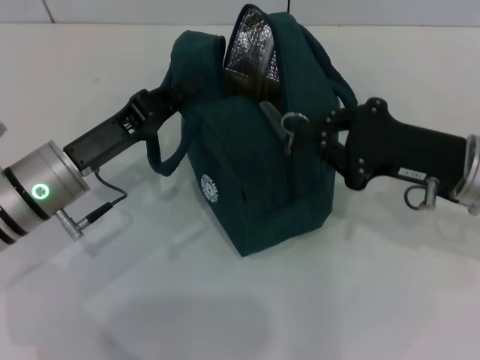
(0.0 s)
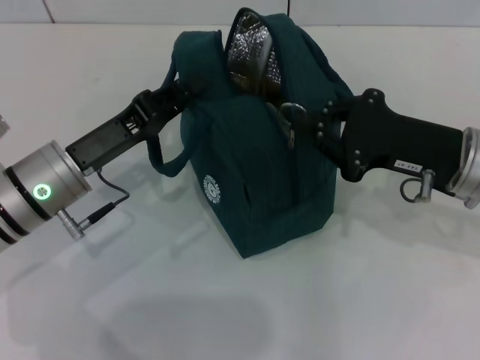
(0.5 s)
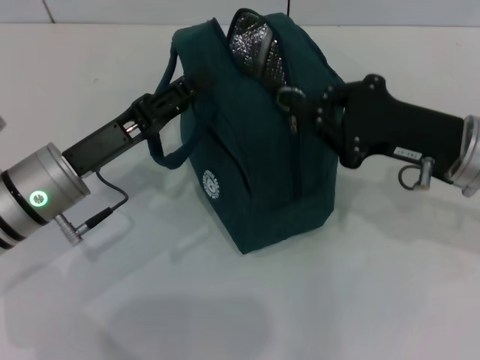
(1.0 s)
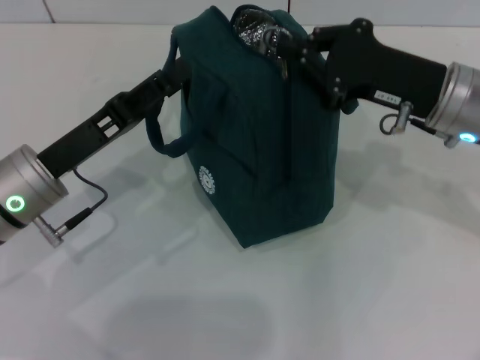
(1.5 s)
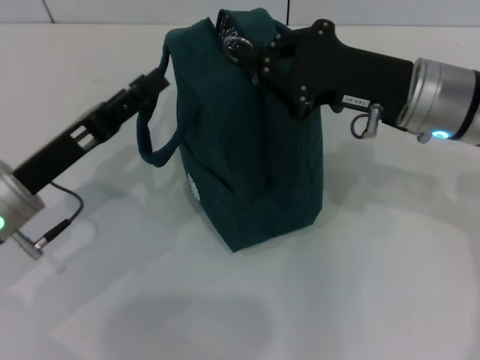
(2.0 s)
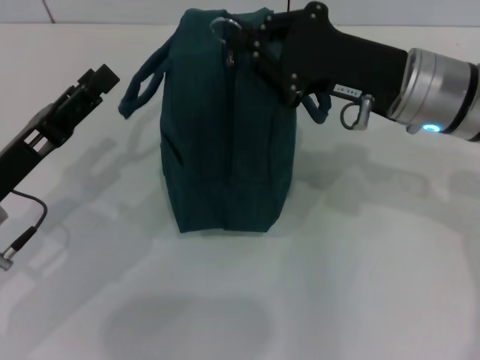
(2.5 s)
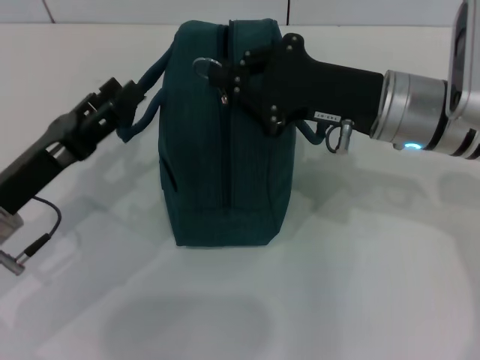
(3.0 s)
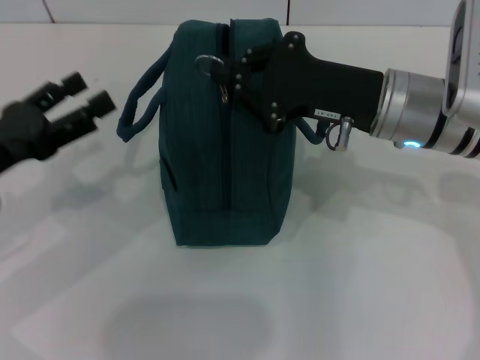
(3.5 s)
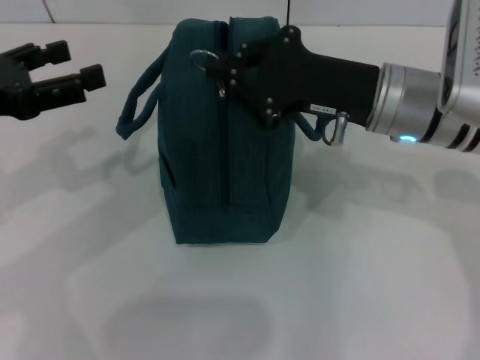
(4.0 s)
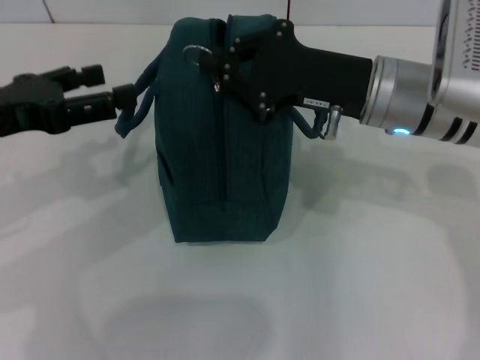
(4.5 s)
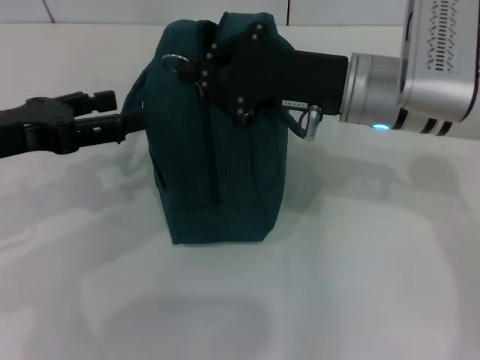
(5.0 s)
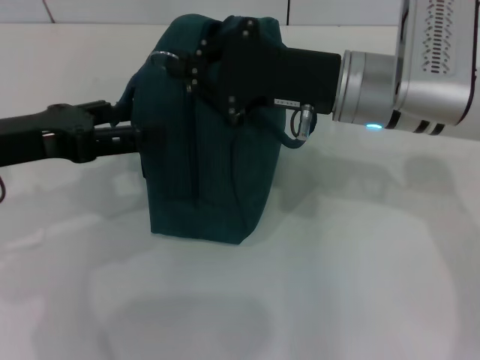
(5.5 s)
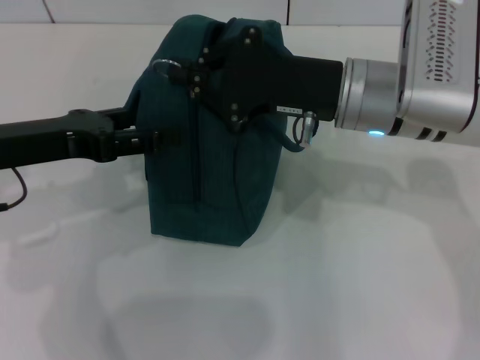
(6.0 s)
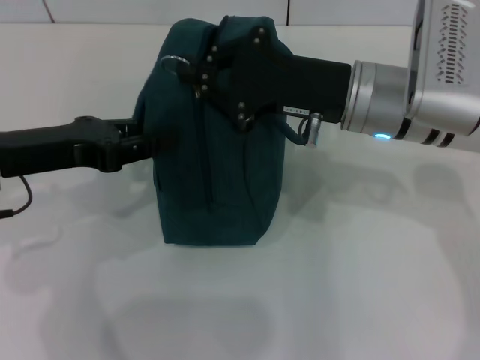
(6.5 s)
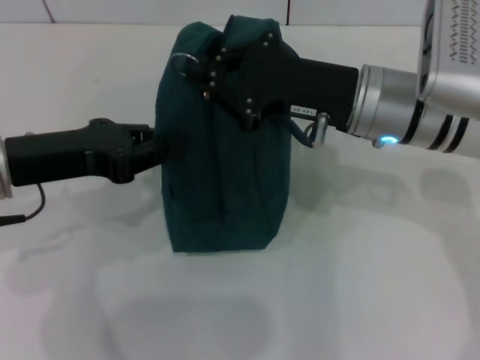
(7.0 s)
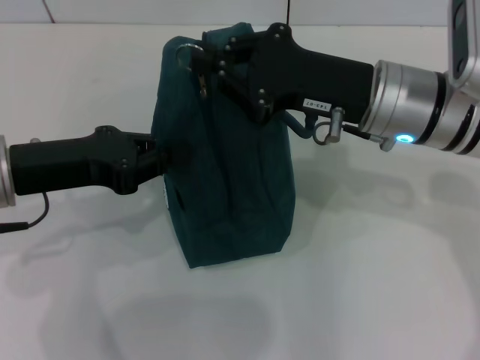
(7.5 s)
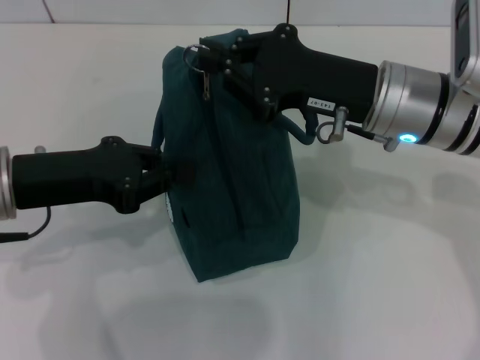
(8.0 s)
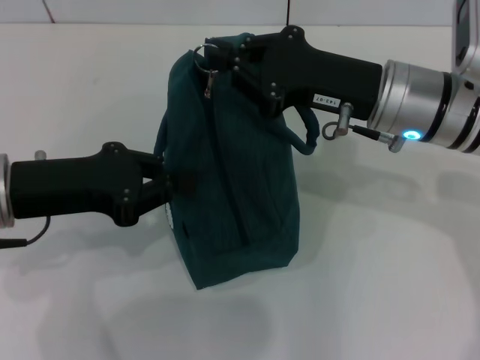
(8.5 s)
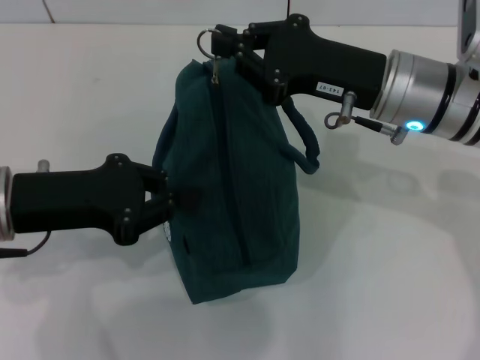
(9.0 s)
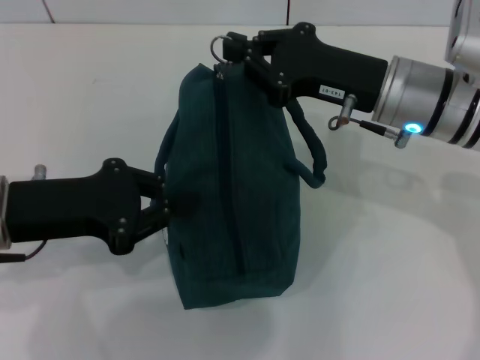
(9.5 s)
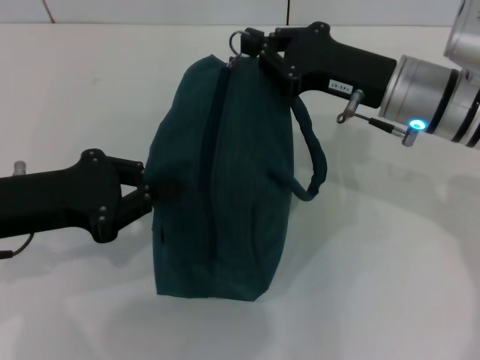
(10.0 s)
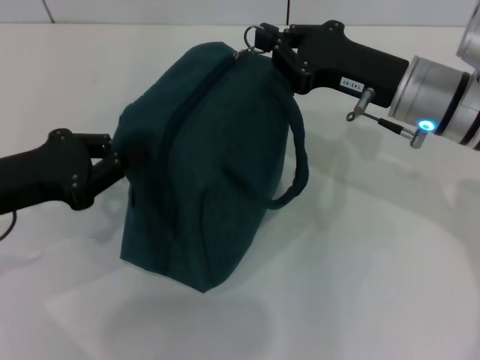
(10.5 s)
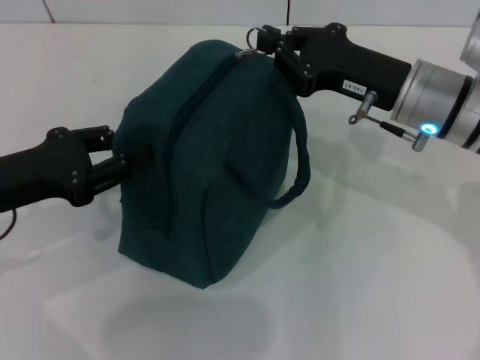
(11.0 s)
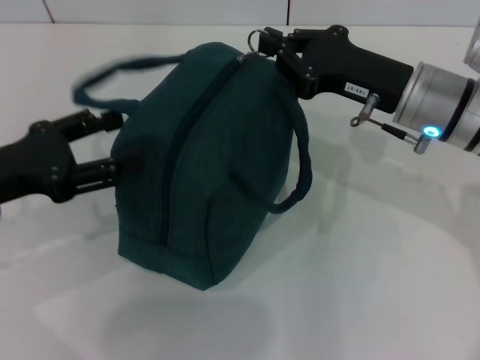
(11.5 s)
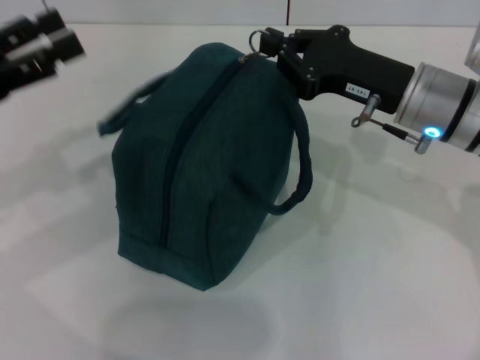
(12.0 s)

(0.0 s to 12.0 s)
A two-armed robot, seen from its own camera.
0.0 s - 2.0 s: The right gripper shifts some 5 cm to the left. Meanwhile the left gripper opens up.
2.0 s - 4.0 s: The left gripper shifts roughly 15 cm upward and to the left.
4.0 s - 6.0 s: The left gripper ends up some 5 cm from where it was.
6.0 s - 8.0 s: The left gripper closes.
8.0 s - 10.0 s: The grippers move only a little.
10.0 s - 12.0 s: The left gripper heads to the left, covering about 5 cm, and opens its fingers.

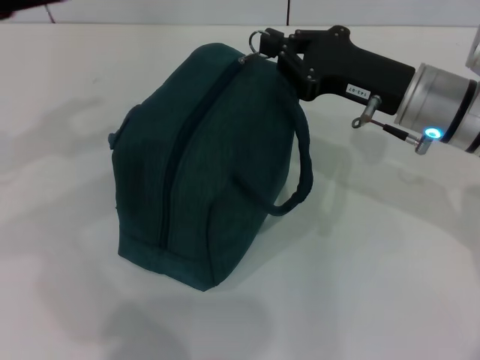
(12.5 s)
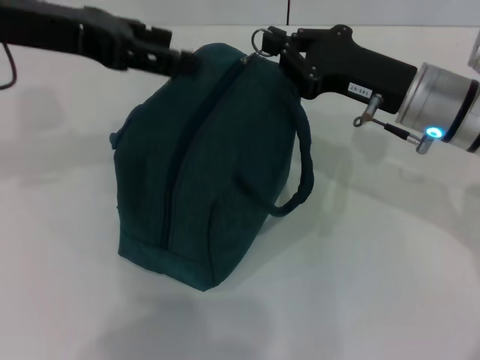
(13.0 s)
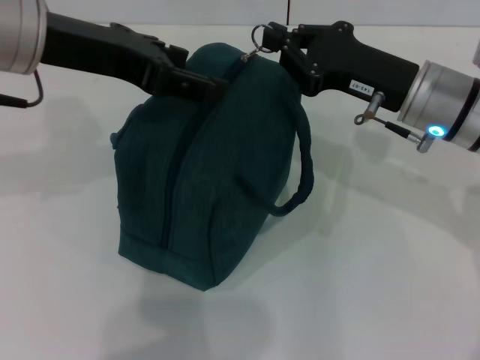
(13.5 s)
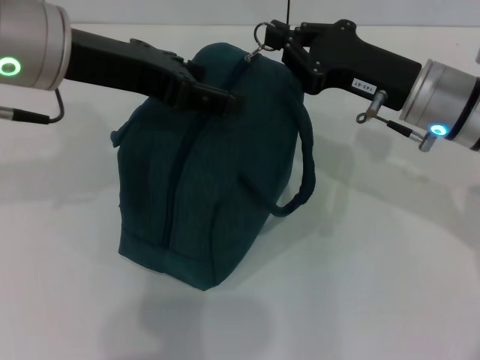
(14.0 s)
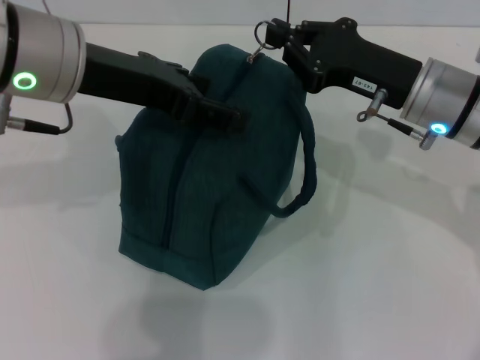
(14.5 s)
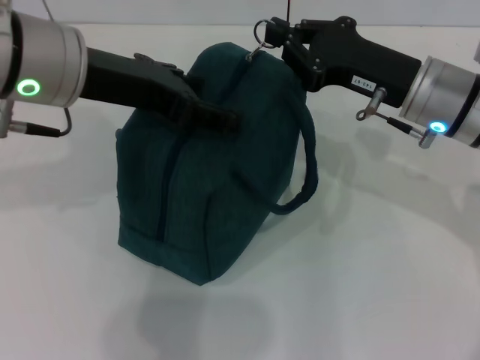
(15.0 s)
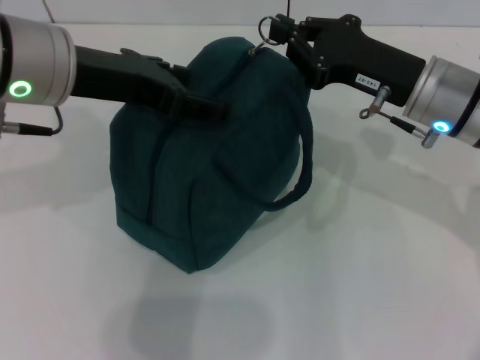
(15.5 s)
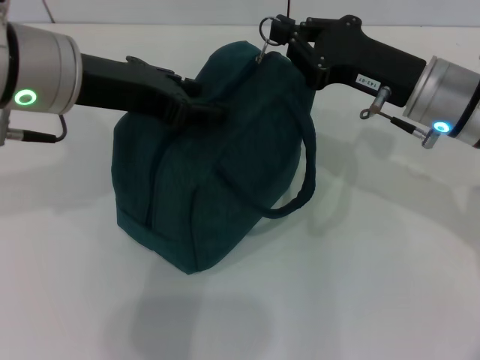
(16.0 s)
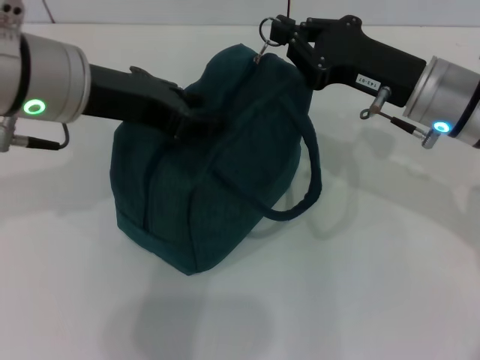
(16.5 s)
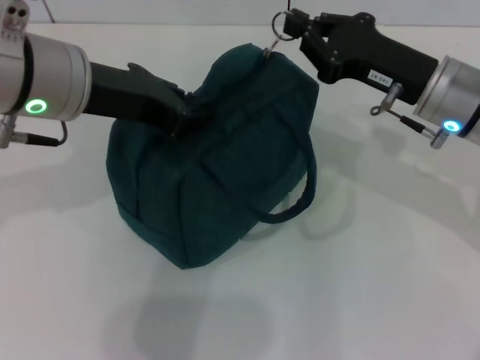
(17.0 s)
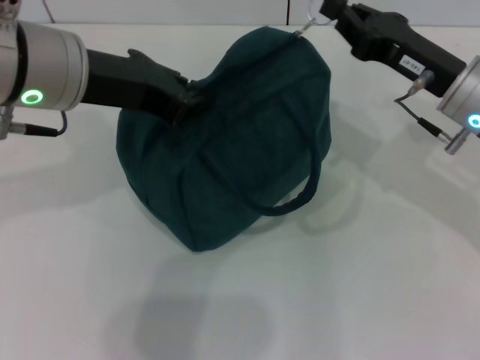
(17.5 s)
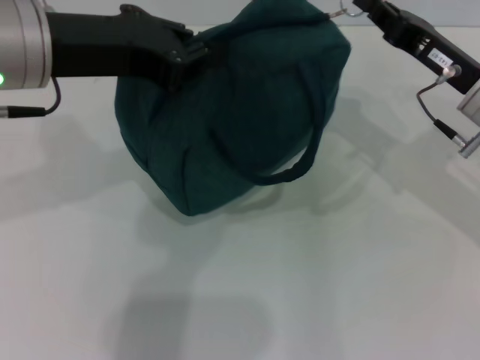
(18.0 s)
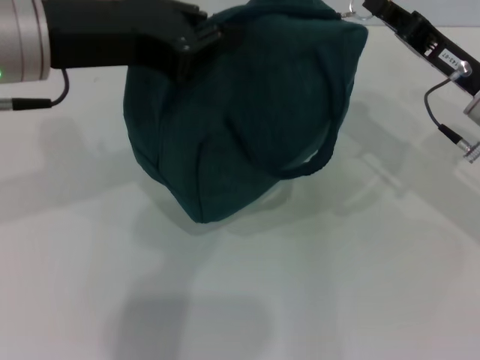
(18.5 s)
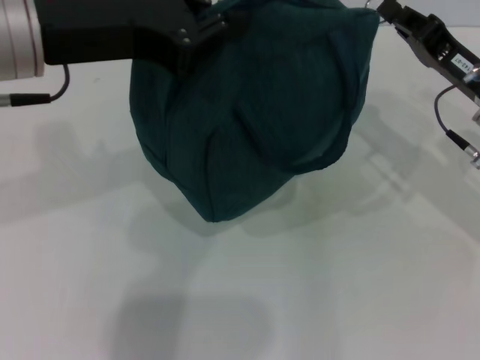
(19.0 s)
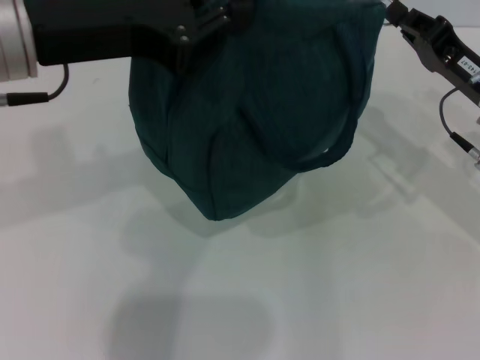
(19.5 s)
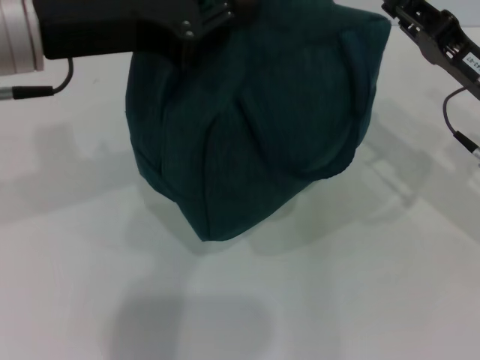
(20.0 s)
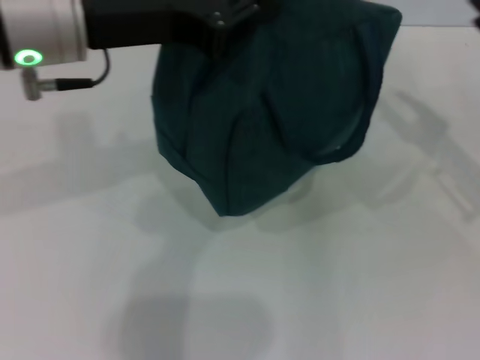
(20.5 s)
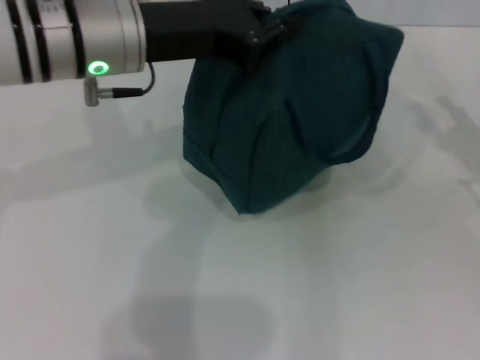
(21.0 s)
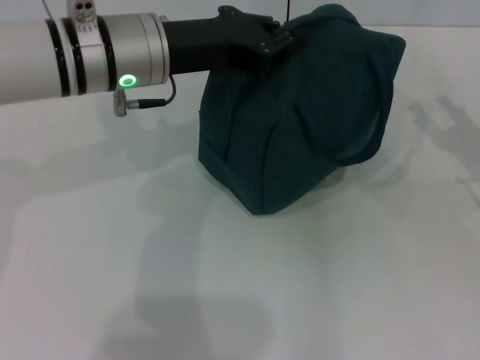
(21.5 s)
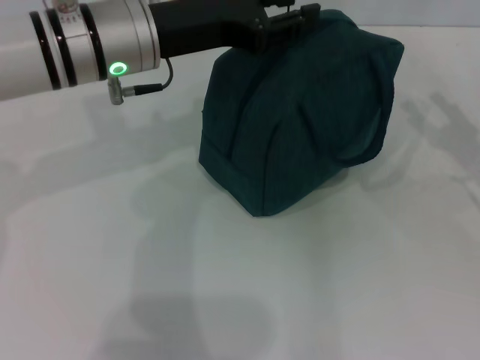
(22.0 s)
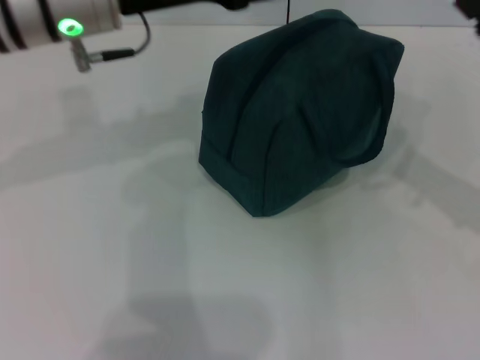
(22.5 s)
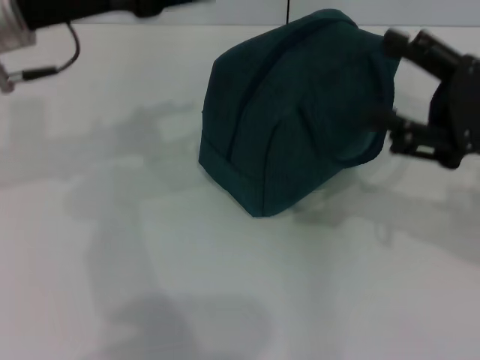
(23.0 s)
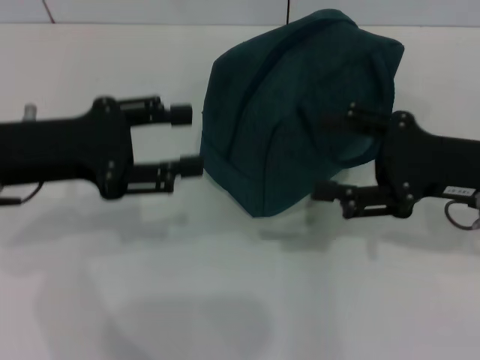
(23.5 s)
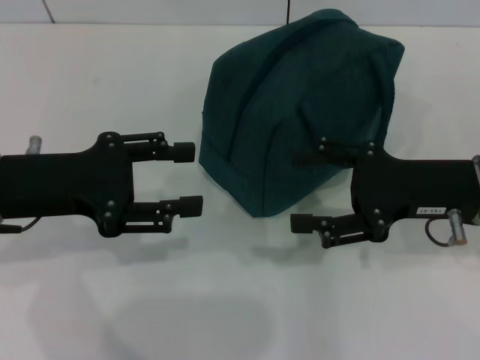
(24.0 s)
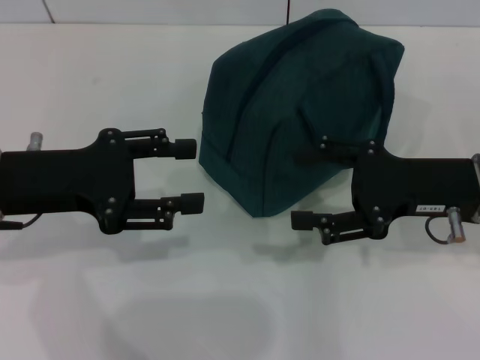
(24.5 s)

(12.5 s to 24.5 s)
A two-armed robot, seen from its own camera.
Step, 12.5 s - 20.0 s: Zip up the lunch bag with your right hand.
Step, 20.5 s - 21.5 s: Hold the lunch bag with your left hand.
12.5 s - 14.5 s: The left gripper heads to the right, covering some 15 cm.
14.5 s - 16.5 s: The left gripper closes up.
16.5 s - 18.5 s: The right gripper travels to the right by about 5 cm. Meanwhile the left gripper closes.
18.5 s - 20.5 s: The right gripper goes roughly 10 cm to the right, and opens its fingers.
20.5 s - 22.5 s: The left gripper goes about 5 cm forward, and opens up.
22.5 s - 24.5 s: The right gripper moves to the left, roughly 5 cm; the left gripper heads backward, to the left and downward, covering approximately 15 cm.
